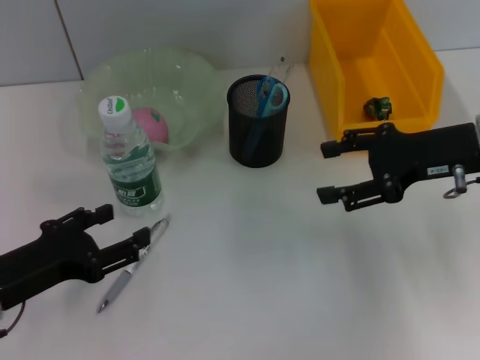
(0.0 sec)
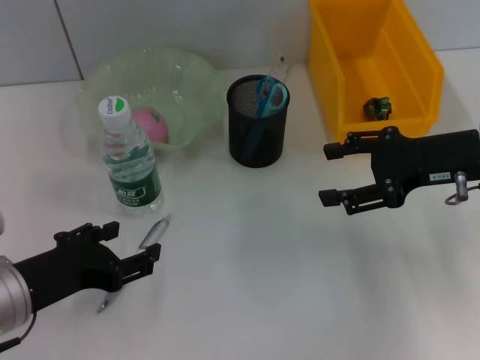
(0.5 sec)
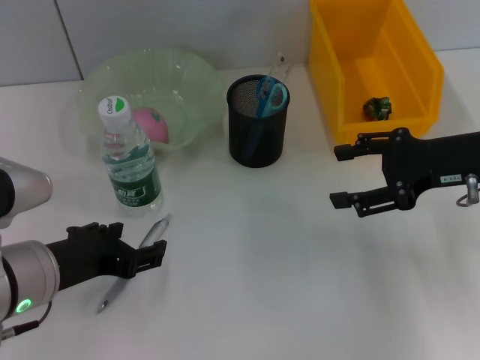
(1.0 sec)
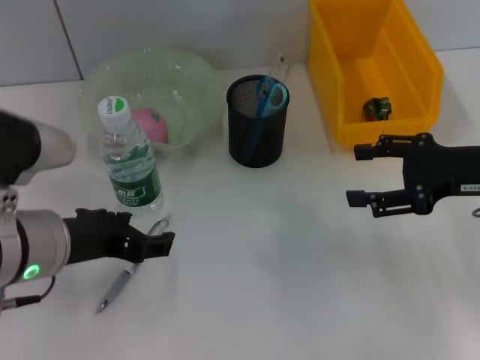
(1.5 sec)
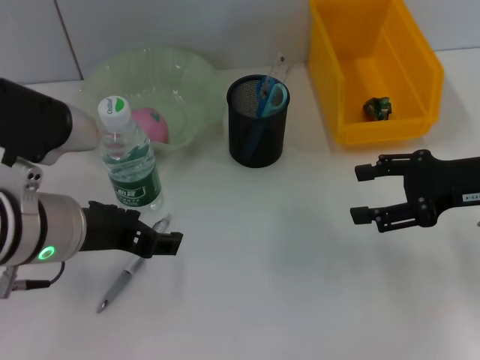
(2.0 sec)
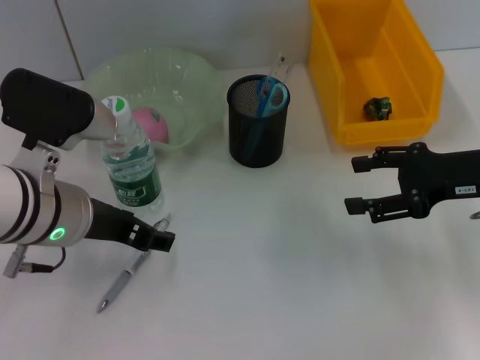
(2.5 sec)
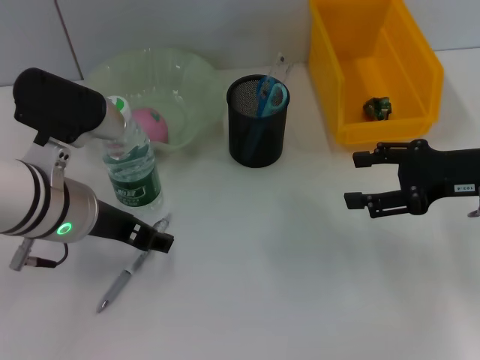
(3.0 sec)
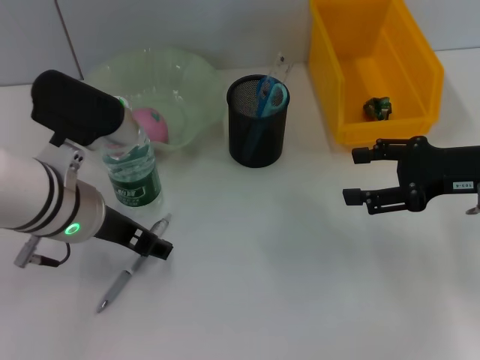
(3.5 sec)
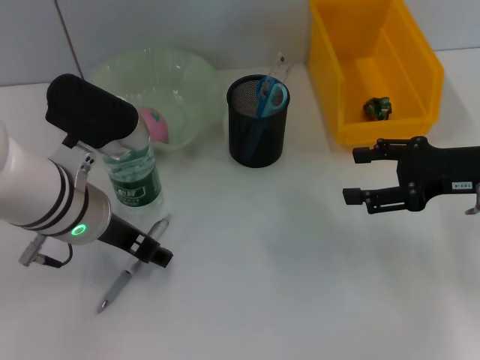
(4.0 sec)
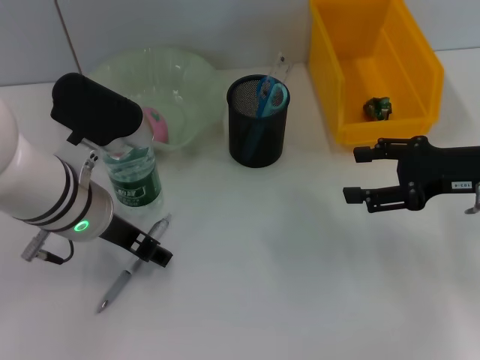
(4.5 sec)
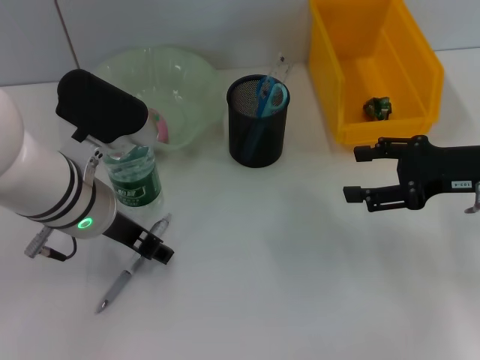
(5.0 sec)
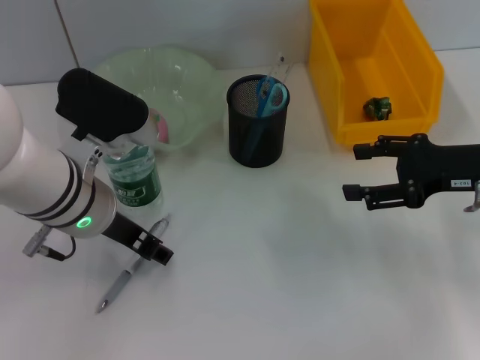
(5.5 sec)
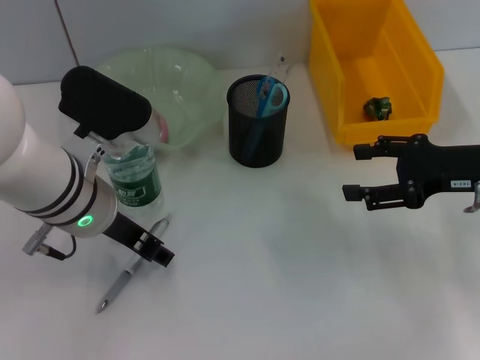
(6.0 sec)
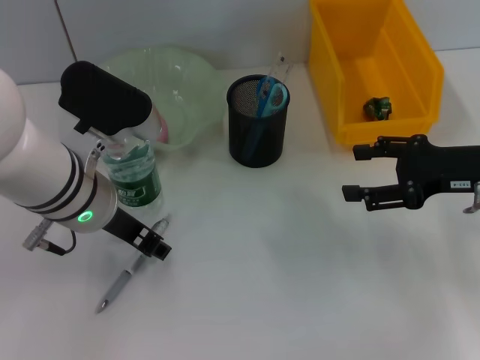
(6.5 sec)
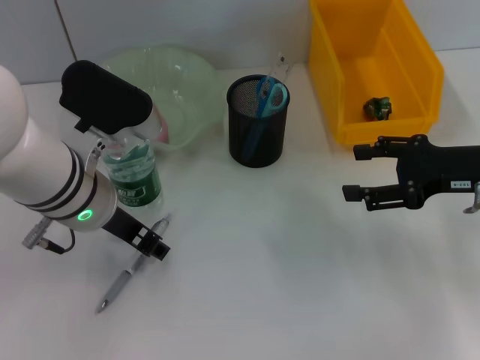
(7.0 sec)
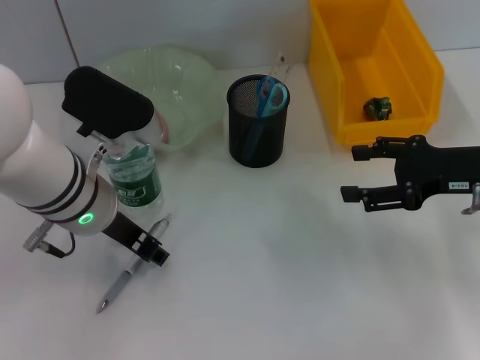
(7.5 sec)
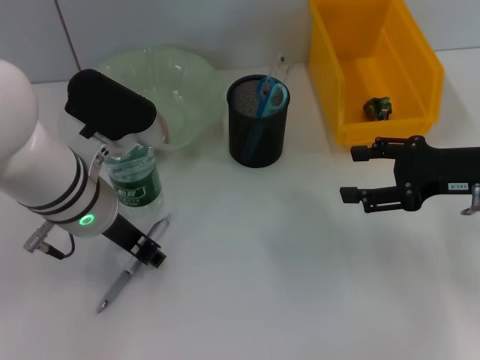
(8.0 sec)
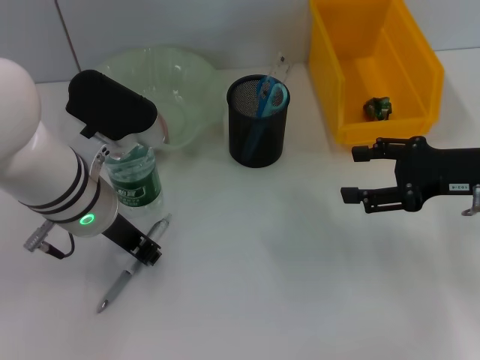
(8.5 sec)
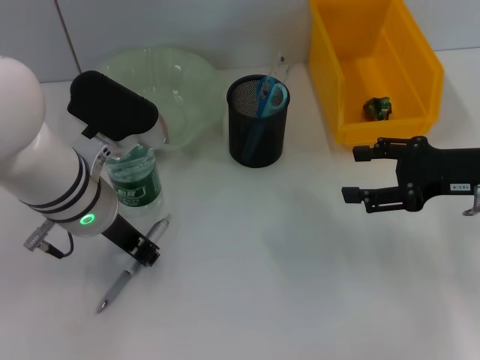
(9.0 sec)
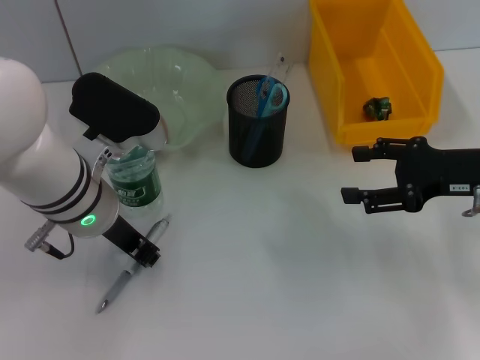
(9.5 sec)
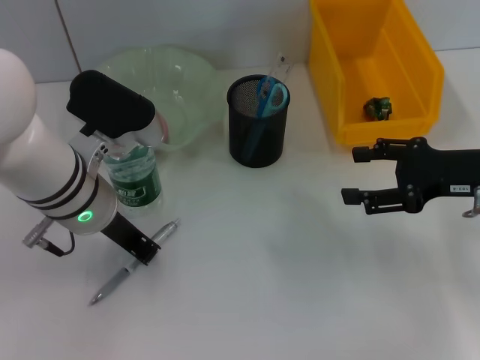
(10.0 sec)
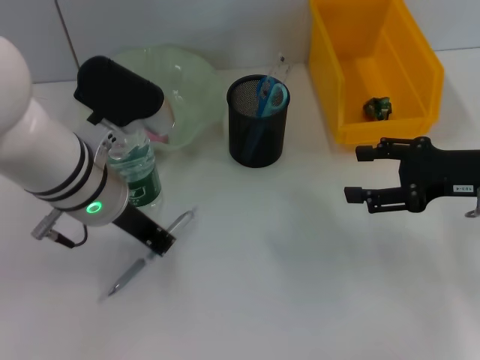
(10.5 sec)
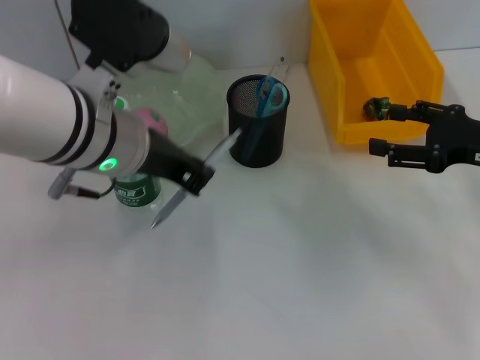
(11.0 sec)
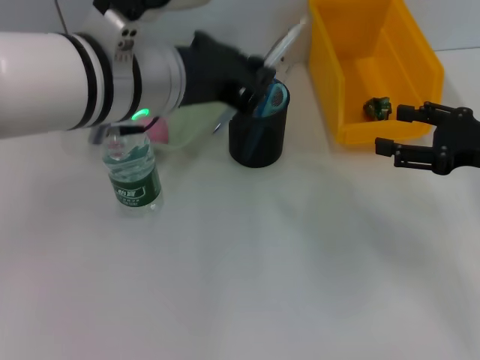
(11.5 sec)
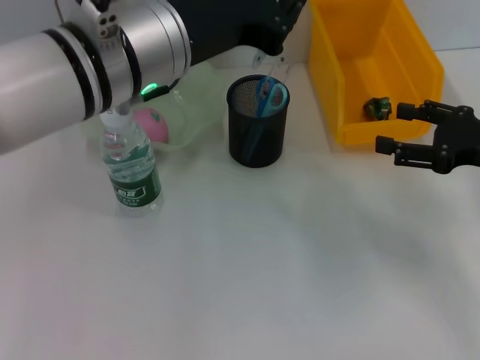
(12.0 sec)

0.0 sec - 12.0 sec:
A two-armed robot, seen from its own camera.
Step, 0.0 sec - 10.0 sec: Grab the gray spring-action pen with the left hand.
0.0 sec - 2.0 sec: The left gripper shifts about 10 cm to the right and upward.
2.0 sec - 4.0 sec: The left gripper shifts by roughly 5 cm.
4.0 sec - 6.0 sec: Neither gripper changes place.
6.0 sec - 8.0 sec: The left gripper closes its fingers.
8.0 sec - 10.0 sec: The left gripper closes.
10.0 sec - 12.0 sec: The left gripper goes some 10 cm upward and to the right.

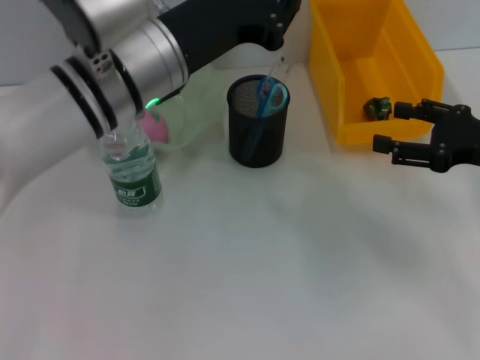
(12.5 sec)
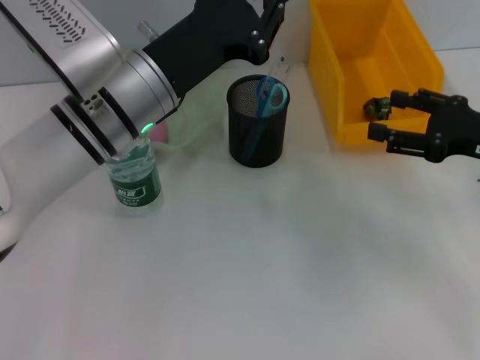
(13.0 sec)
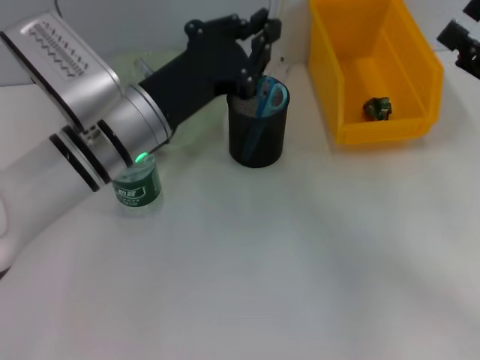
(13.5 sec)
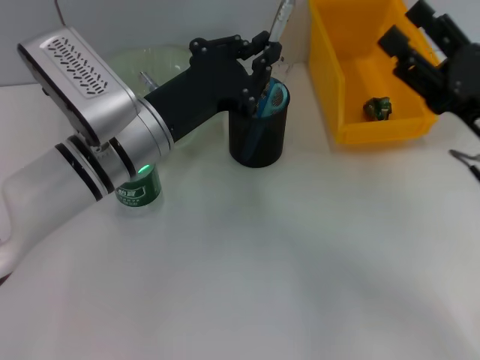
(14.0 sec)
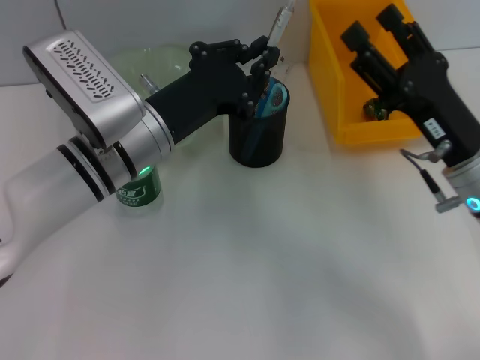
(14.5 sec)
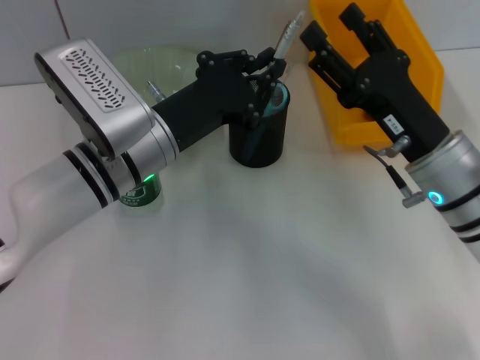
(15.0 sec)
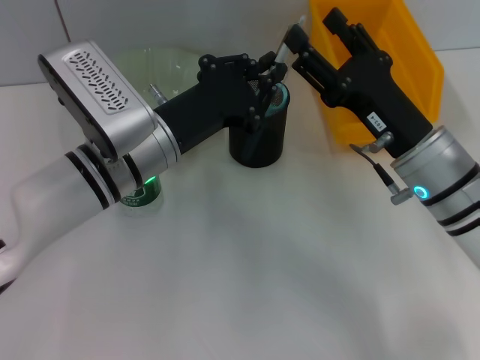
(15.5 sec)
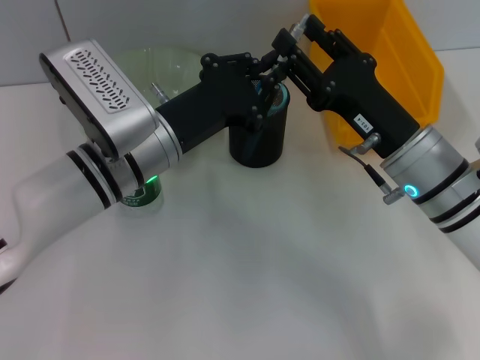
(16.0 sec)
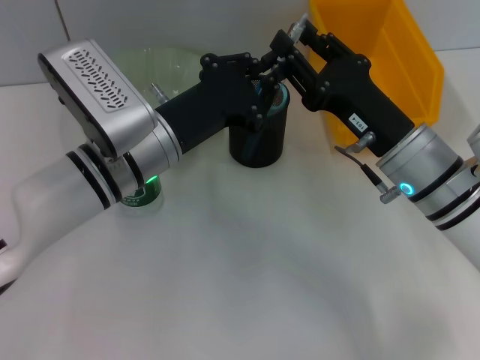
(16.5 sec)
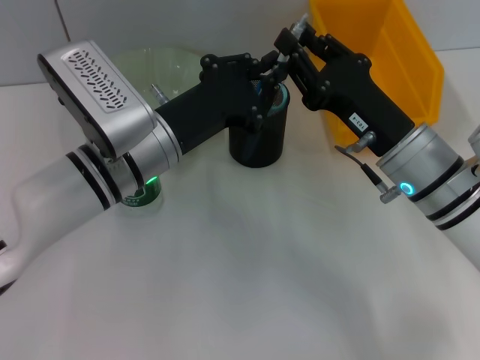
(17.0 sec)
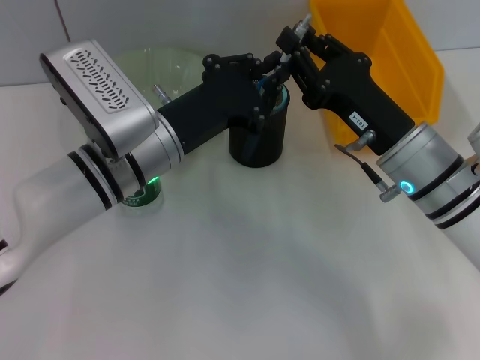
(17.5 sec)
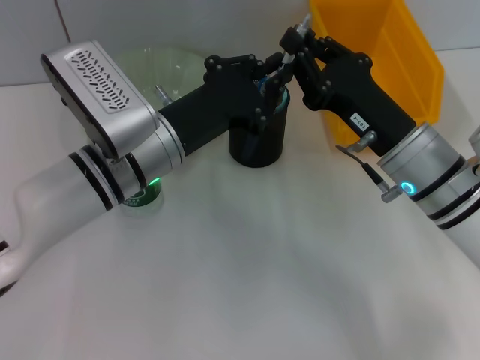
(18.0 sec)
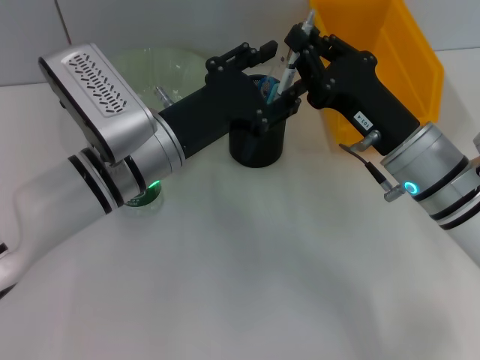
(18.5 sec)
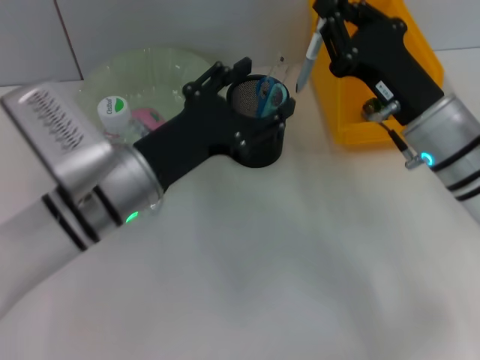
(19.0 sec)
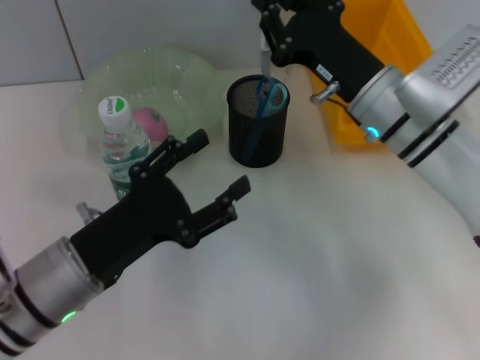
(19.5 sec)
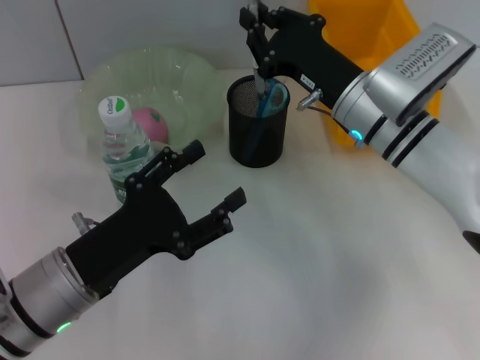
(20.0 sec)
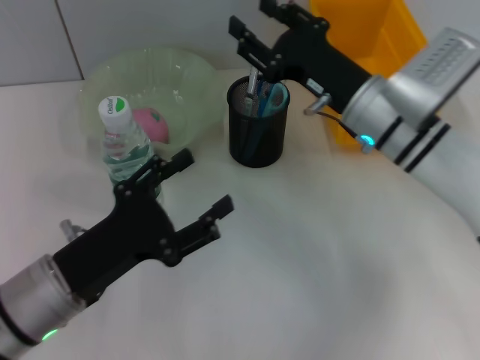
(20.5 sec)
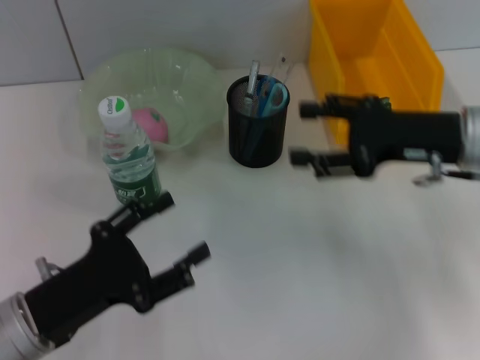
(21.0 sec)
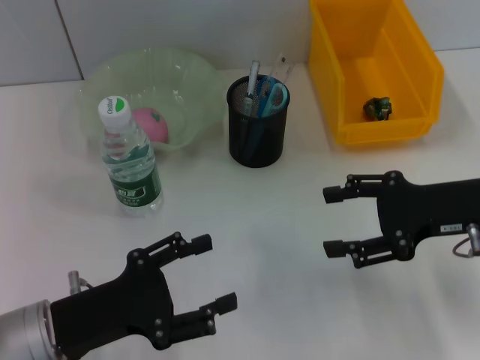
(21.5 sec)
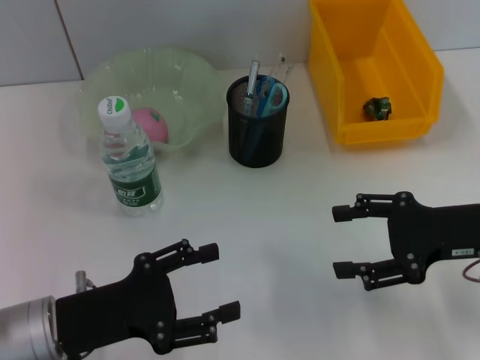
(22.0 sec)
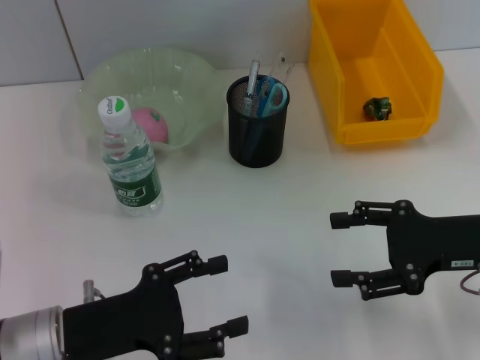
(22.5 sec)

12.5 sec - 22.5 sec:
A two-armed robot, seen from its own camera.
Step, 12.5 sec - 18.0 sec: Pass the gray spring-action pen from the left hand to the right hand.
Step, 18.5 sec - 20.0 sec: Place the gray spring-action pen into the pen holder with the right hand.
12.5 sec - 14.5 sec: The left gripper goes approximately 10 cm downward. The right gripper is displaced to the left by approximately 10 cm.
14.5 sec - 16.5 sec: The right gripper ends up roughly 5 cm from where it was, and closes its fingers.
16.5 sec - 18.5 sec: The left gripper opens up, while the right gripper closes its fingers.
18.5 sec - 20.5 sec: The left gripper moves backward, to the left and downward, some 15 cm, and opens, while the right gripper moves forward, roughly 5 cm, and opens its fingers.
20.5 sec - 22.5 sec: The right gripper shifts some 15 cm to the right and backward, and opens up.
